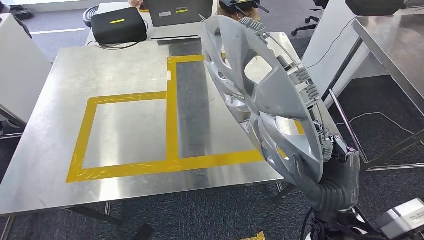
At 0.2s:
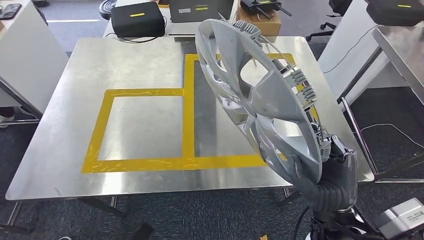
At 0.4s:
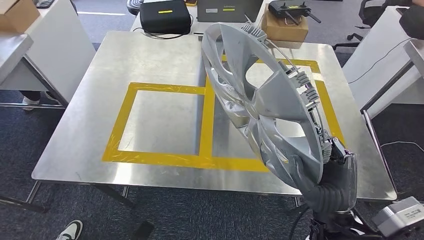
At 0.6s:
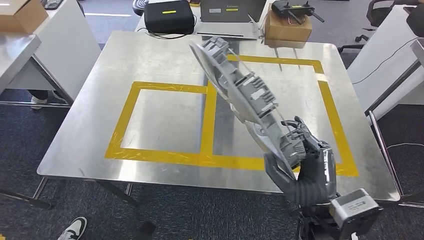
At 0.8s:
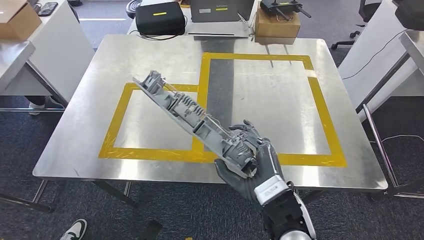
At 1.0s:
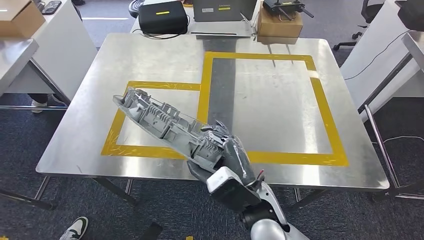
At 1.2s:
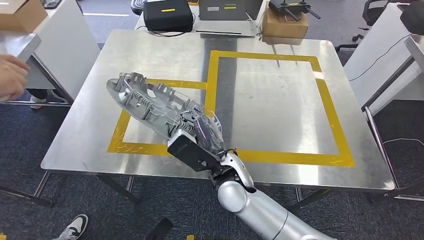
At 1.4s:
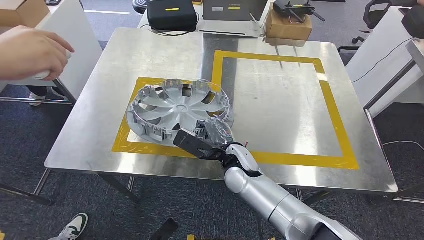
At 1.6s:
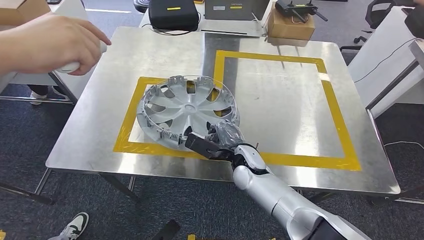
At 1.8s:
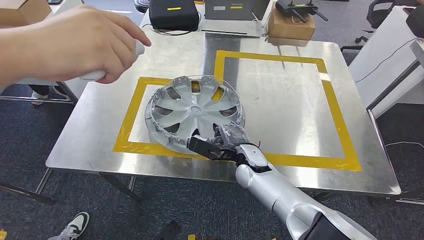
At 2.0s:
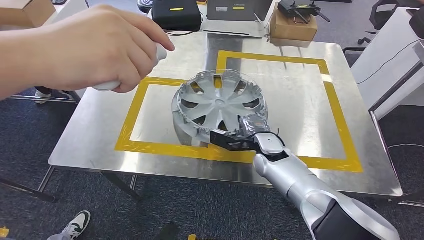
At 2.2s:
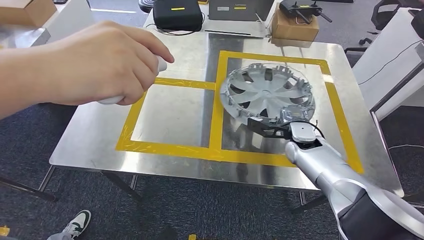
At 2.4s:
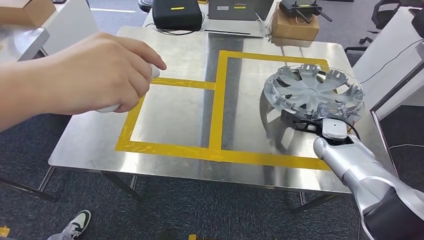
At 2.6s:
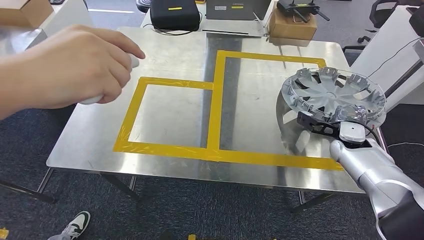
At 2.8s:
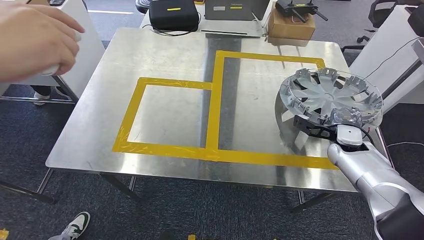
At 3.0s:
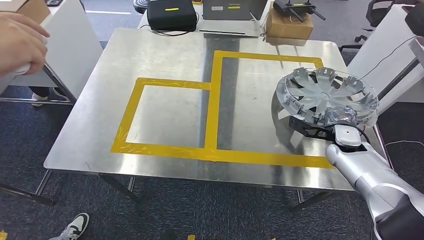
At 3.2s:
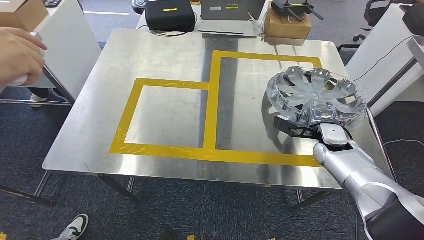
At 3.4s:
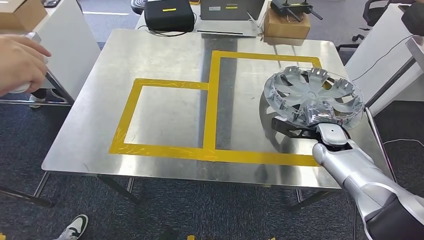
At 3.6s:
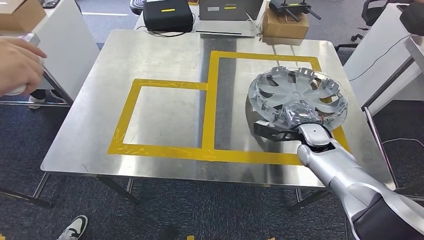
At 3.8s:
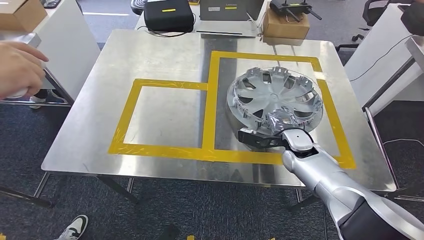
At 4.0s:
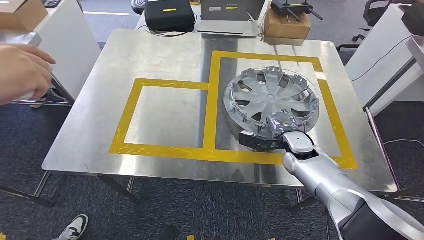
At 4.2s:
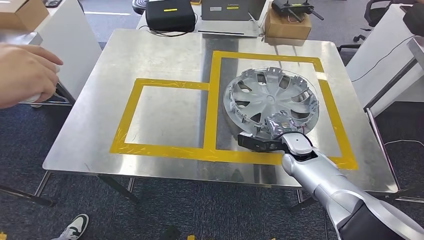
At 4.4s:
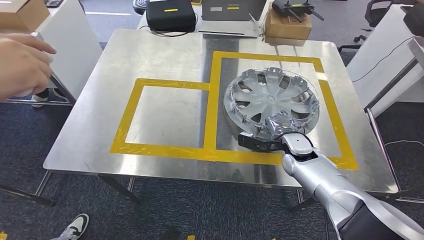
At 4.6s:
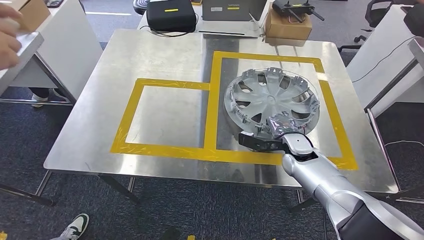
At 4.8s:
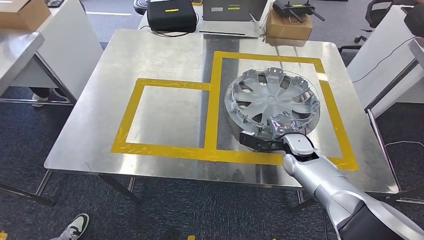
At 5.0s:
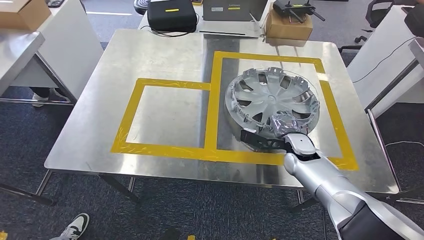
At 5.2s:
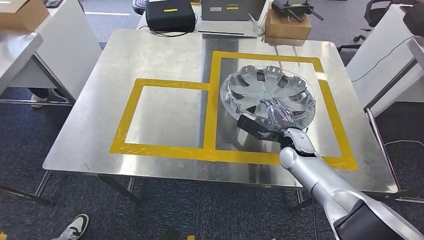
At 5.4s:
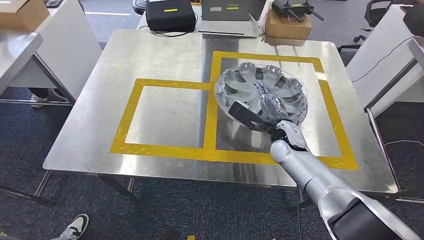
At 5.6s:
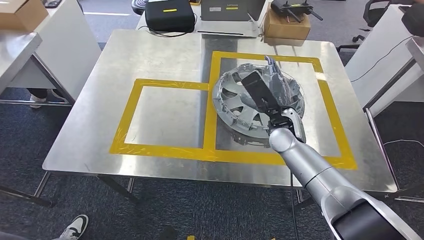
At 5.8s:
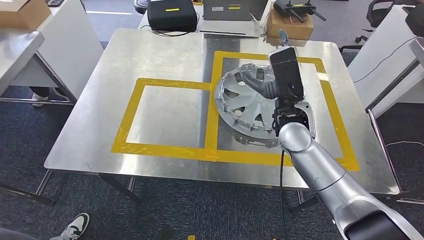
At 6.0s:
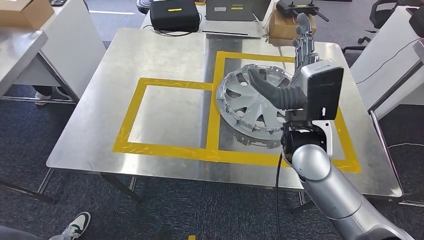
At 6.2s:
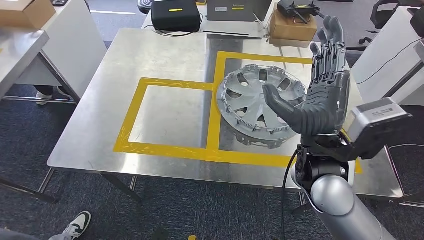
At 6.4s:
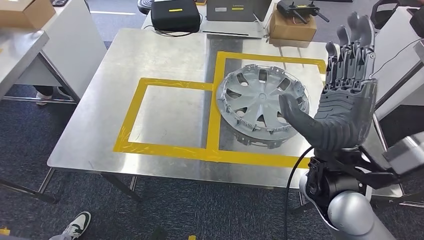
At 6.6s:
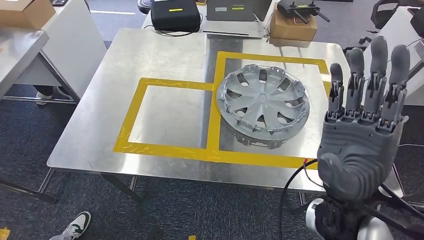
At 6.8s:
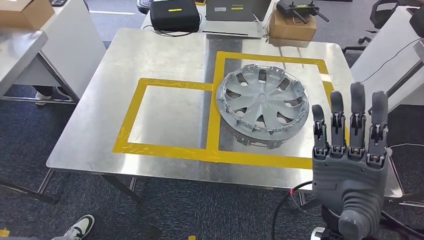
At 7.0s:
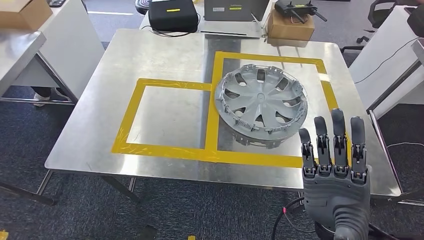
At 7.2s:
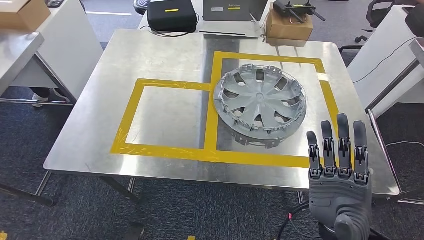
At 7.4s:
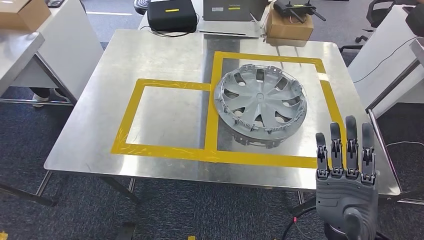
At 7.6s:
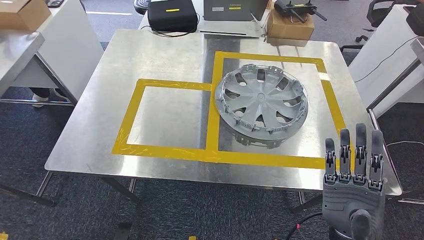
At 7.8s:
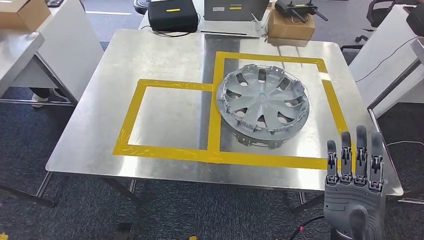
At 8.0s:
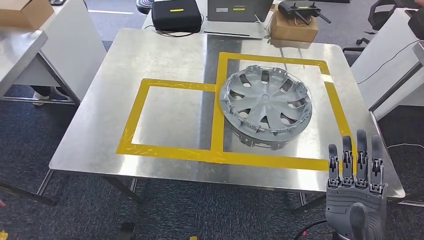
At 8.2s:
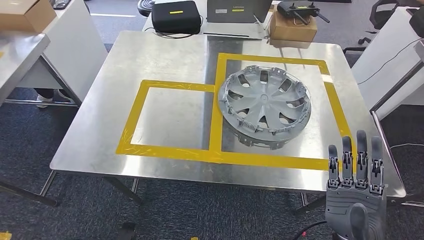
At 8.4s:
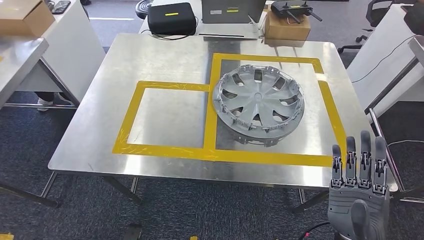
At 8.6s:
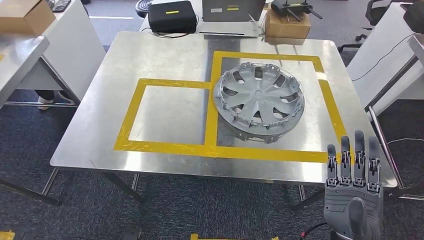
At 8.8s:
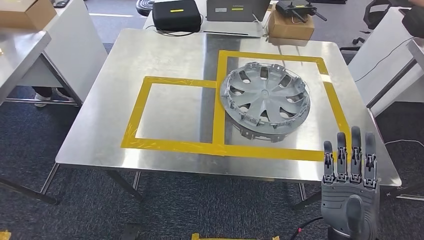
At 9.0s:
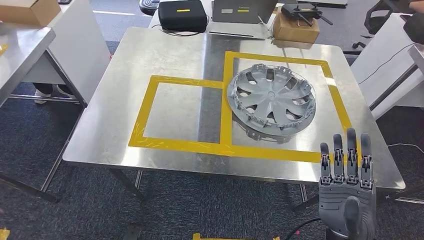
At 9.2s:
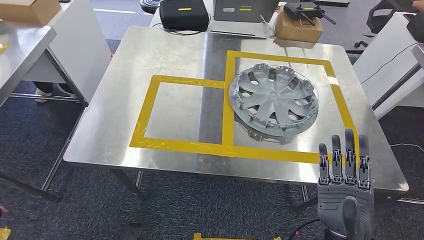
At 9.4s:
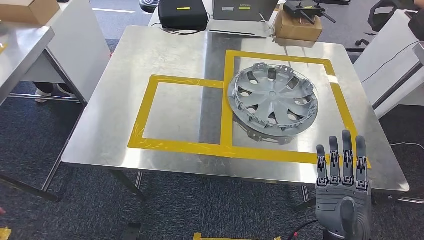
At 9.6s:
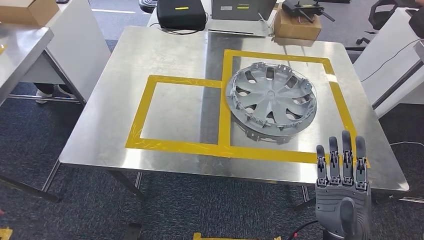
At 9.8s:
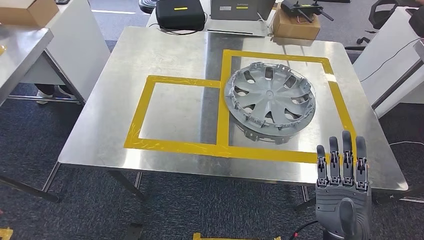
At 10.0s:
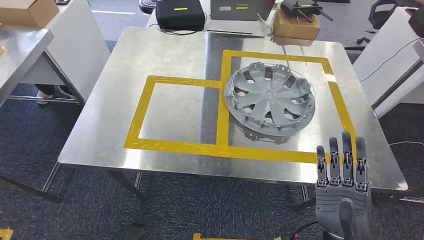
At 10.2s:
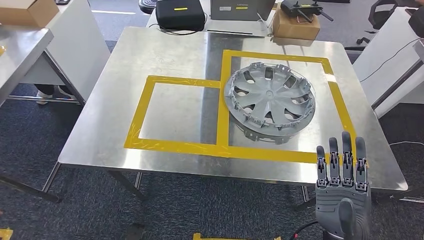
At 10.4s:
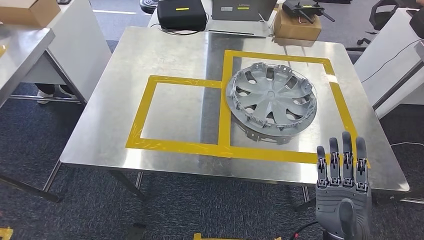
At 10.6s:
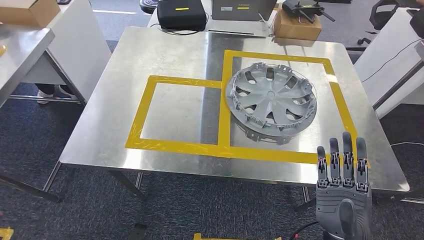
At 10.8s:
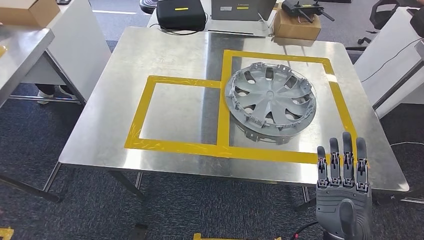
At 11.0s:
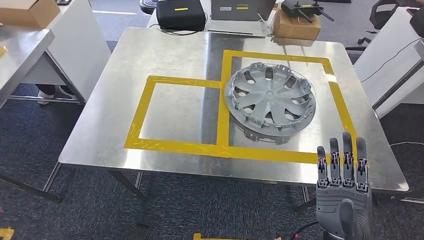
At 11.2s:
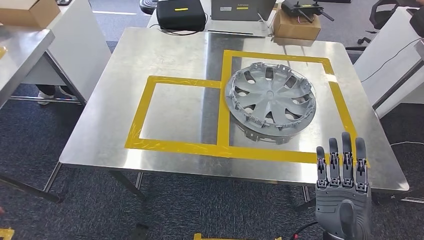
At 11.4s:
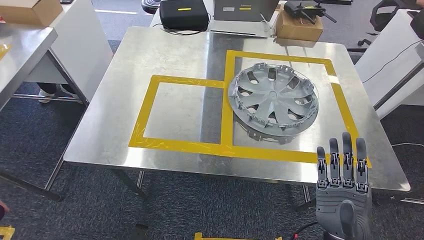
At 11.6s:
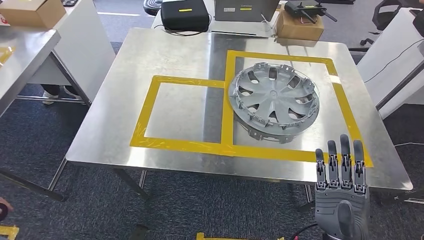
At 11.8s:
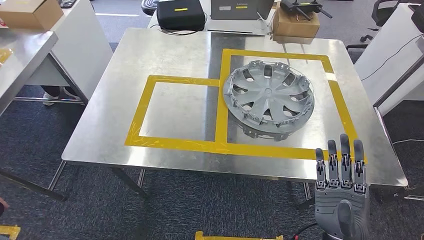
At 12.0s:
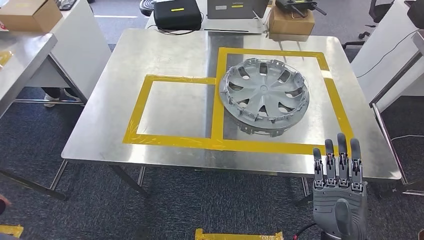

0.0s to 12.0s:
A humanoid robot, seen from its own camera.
Step, 0.4s to 8.2s: Insert the small parts into the corresponding holes on the workbench.
9.0s to 10.4s: The hands stay close to where they were, moving slightly.

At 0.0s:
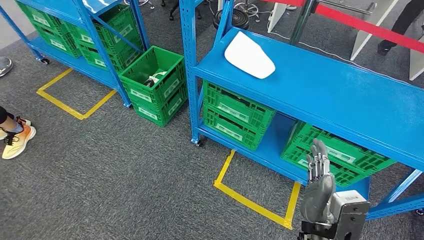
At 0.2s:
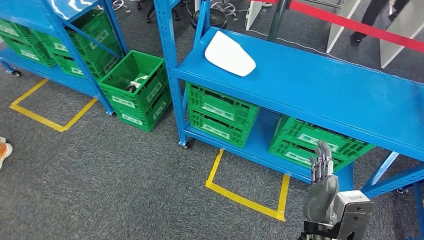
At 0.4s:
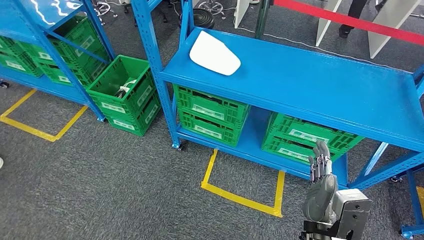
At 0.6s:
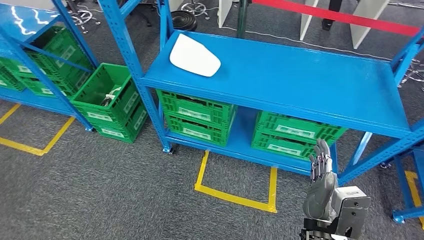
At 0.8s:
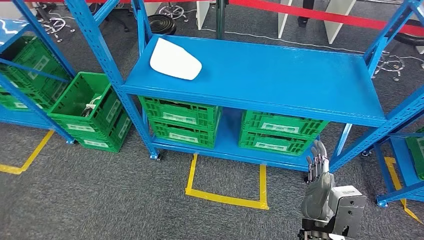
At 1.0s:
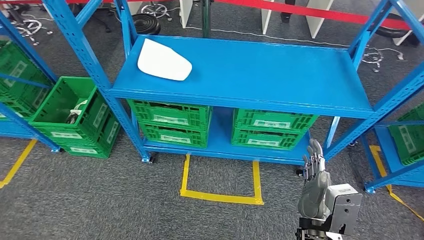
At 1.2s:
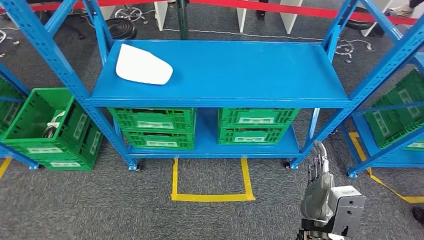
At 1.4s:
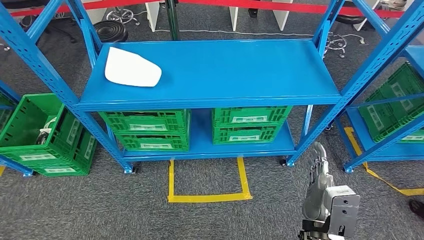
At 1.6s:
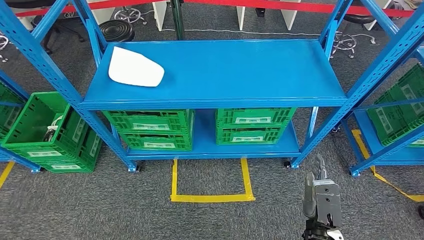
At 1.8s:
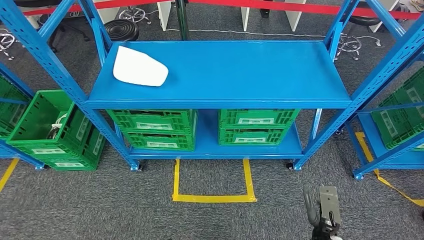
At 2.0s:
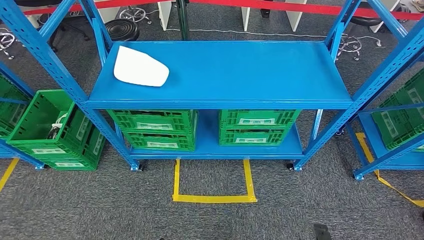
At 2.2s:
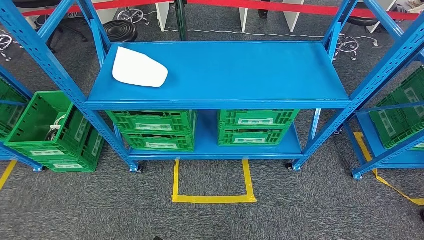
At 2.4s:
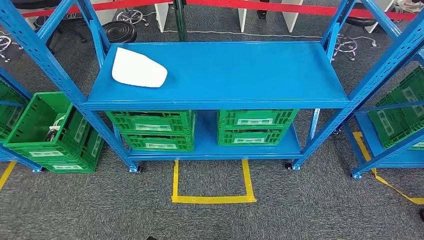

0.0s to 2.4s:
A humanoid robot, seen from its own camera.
Step, 0.0s to 2.2s: Move to the initial position of the workbench.
1.2s to 2.4s: The right hand is displaced downward and to the right by some 30 cm.
